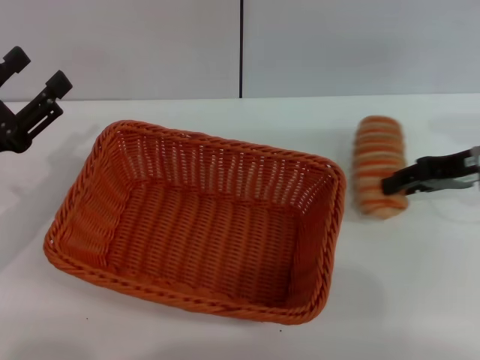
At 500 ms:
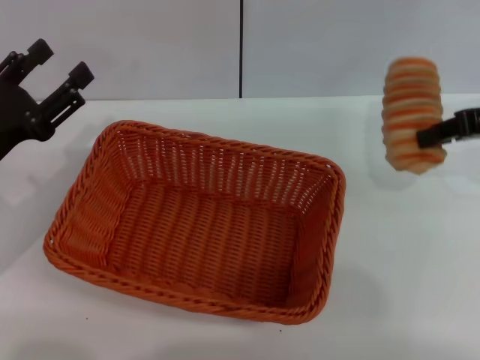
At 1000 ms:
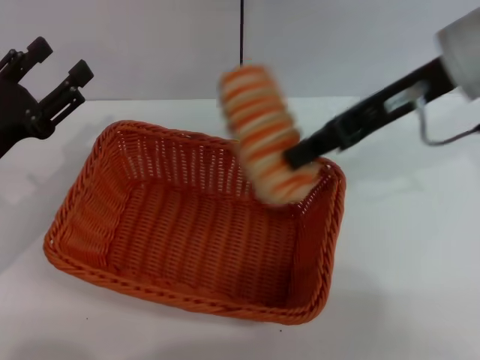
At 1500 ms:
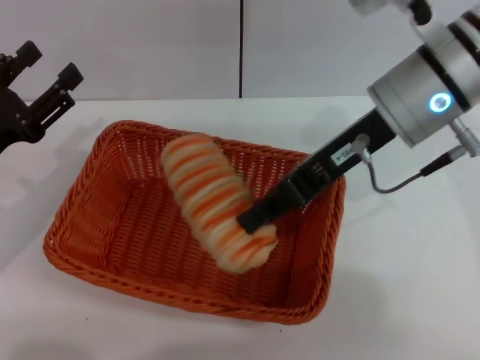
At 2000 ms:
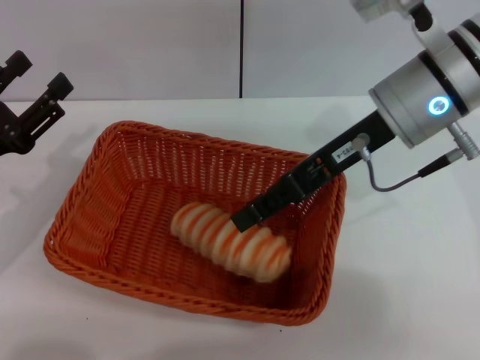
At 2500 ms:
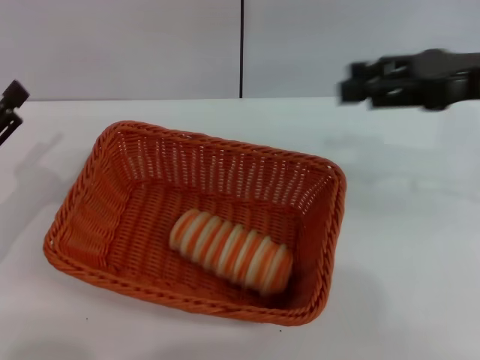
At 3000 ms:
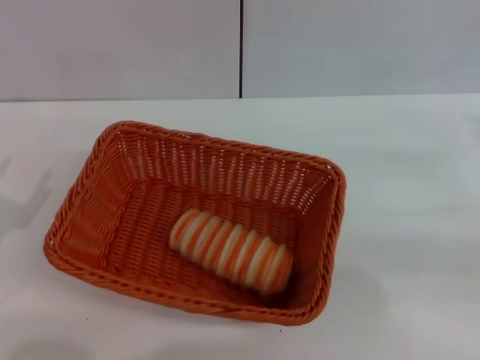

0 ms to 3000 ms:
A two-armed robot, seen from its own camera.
Step, 0 ms to 2000 ms: Place the long bread in the basket with right gripper.
0 ms to 1500 ms: The right gripper travels to the left and upward by about 15 cm, and closes.
1500 ms to 3000 ms: The right gripper travels to the right by some 25 cm, and opens its fingers. The left gripper travels backward by roughly 10 cm.

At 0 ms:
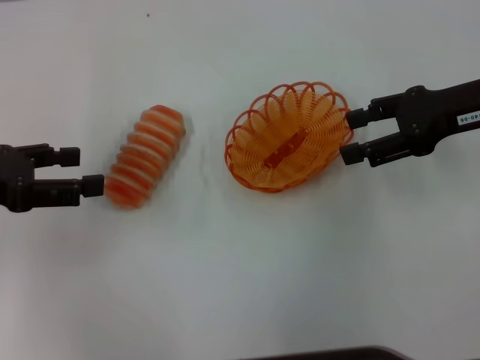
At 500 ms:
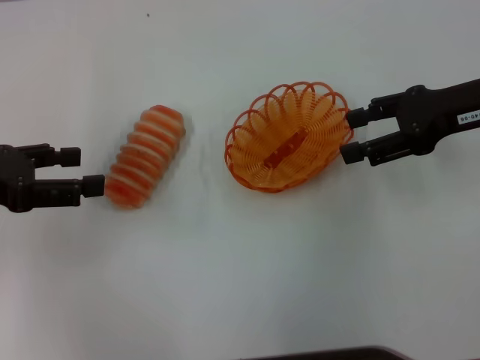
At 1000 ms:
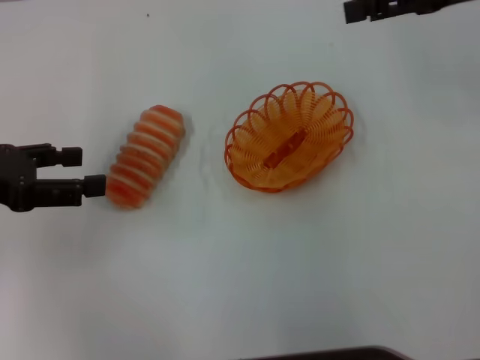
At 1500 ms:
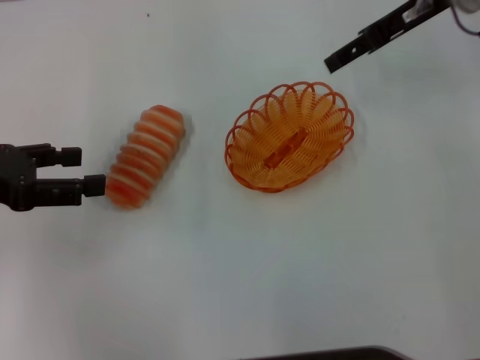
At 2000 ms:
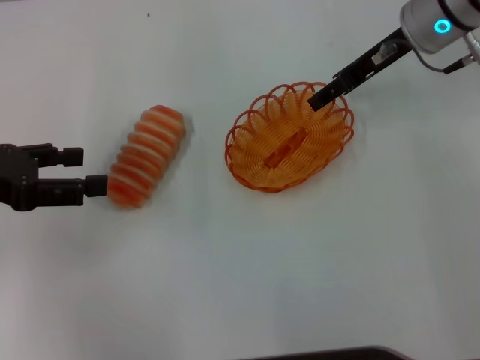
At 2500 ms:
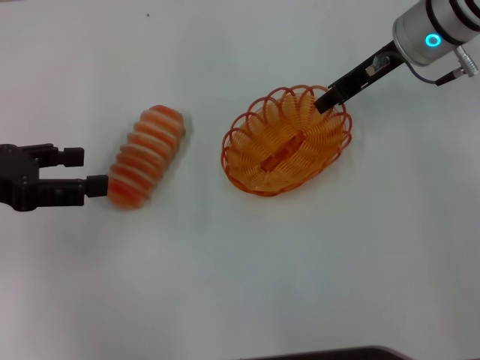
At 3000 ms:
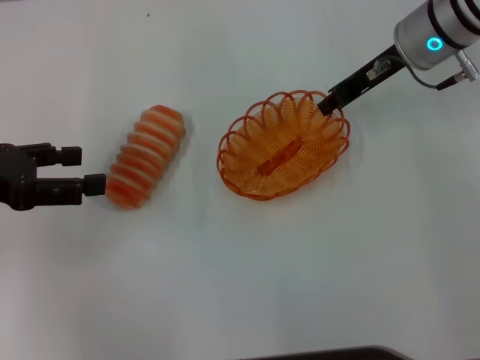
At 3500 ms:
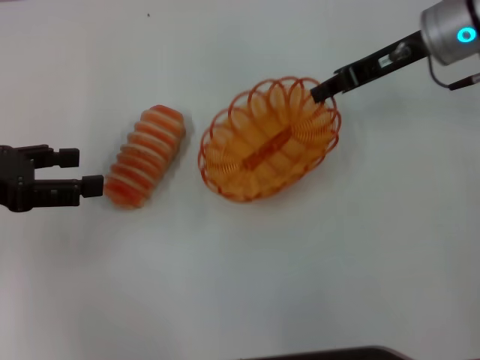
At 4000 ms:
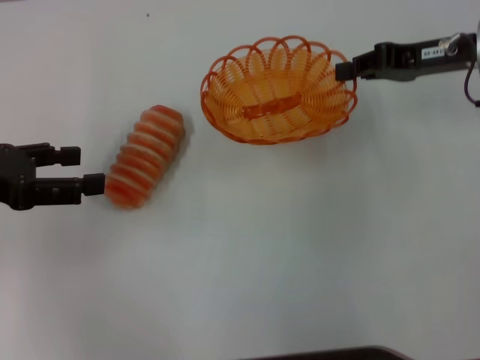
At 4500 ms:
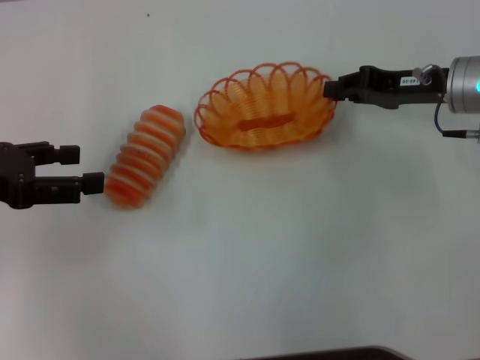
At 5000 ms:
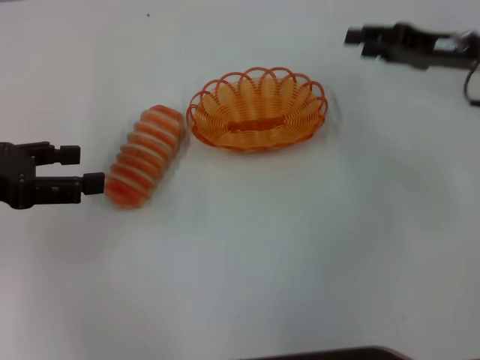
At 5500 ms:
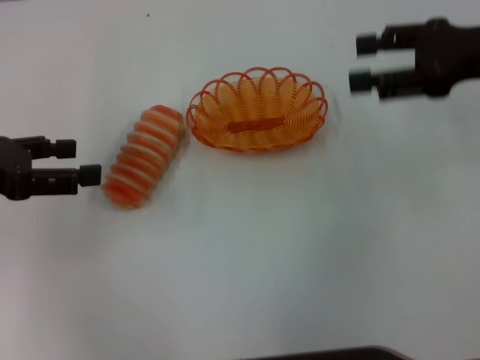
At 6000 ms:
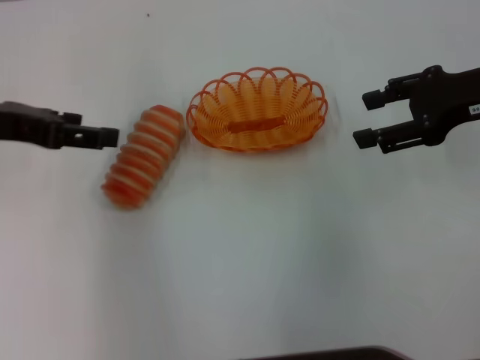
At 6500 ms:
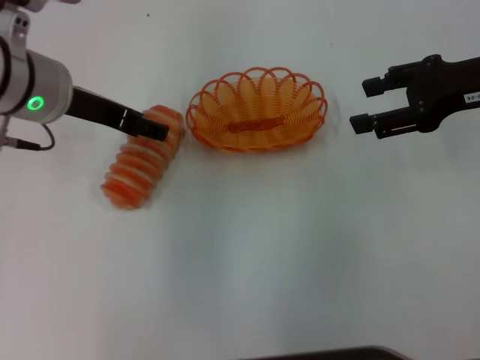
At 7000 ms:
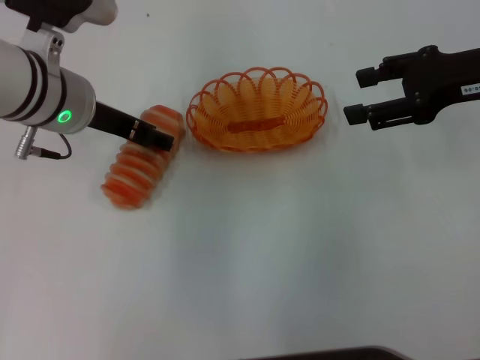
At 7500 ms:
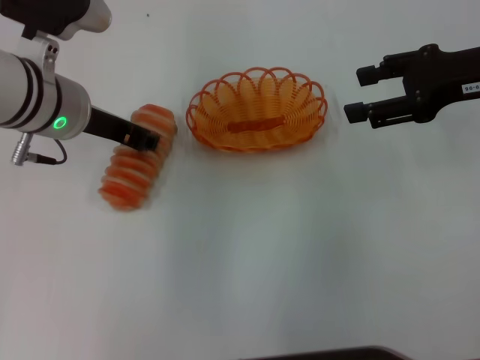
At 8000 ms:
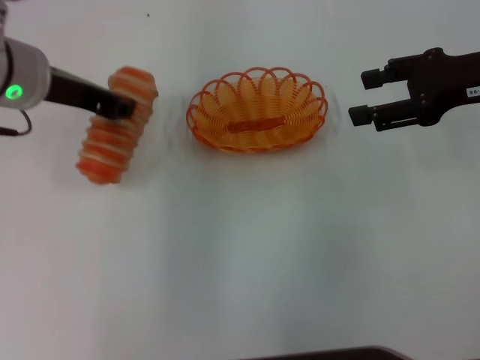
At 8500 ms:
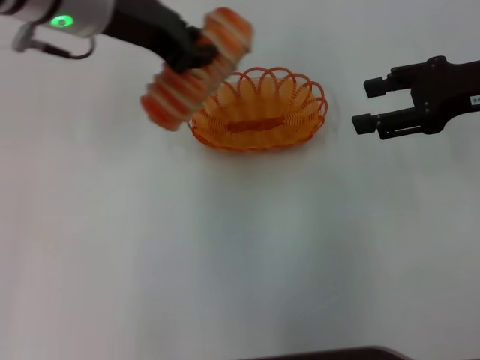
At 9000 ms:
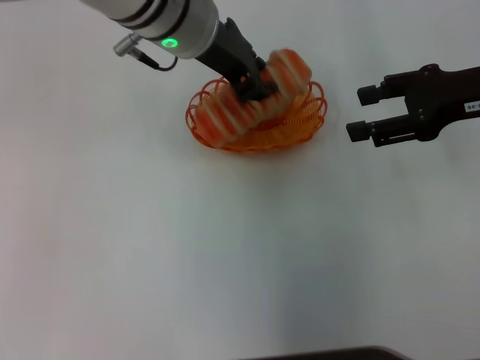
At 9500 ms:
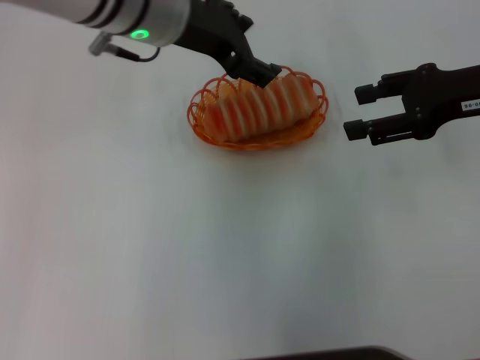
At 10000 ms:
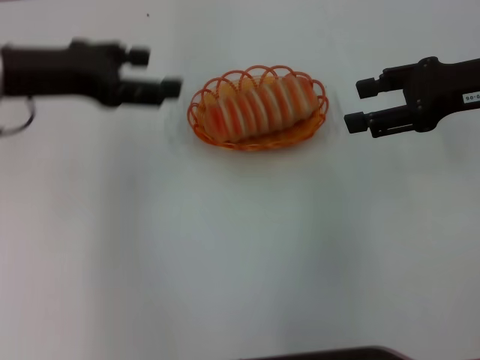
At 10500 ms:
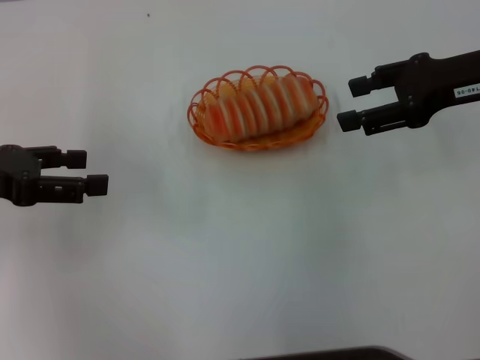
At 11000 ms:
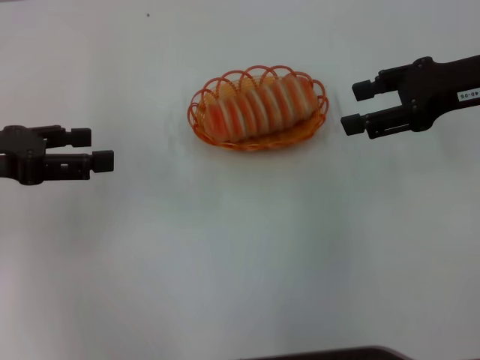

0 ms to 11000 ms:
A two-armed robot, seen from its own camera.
Step, 0 ms to 3500 ms: Pick up the basket with the right gripper.
Step, 4000 ms to 5000 ms: Place the basket in the center of view with the right gripper.
Step, 5500 ms to 8000 ms: Pick up the long bread with the left gripper.
Step, 8500 ms to 9000 ms: Place the long bread into the basket with the left gripper.
0 ms to 2000 ms: The right gripper heads forward and to the left, covering about 10 cm.
2000 ms to 3500 ms: The right gripper closes up.
3500 ms to 5500 ms: The right gripper travels backward and to the right by approximately 10 cm, goes downward and returns, approximately 5 cm each way, and opens up.
5500 ms to 7500 ms: The left gripper shifts approximately 15 cm to the right and forward, and closes up.
7500 ms to 9000 ms: The left gripper is displaced to the right and upward by about 10 cm, and closes.
9000 ms to 11000 ms: The left gripper moves to the left, roughly 25 cm, and opens its fingers.
